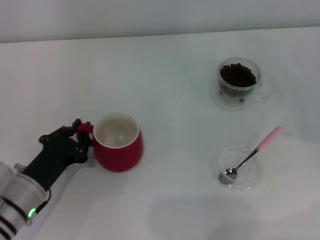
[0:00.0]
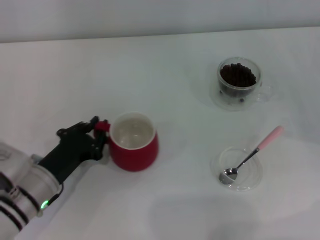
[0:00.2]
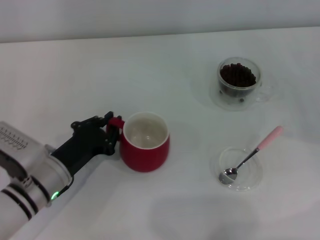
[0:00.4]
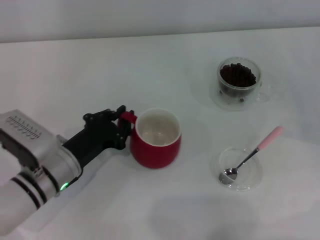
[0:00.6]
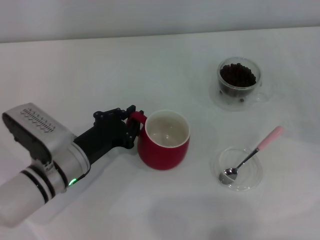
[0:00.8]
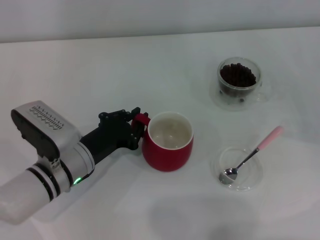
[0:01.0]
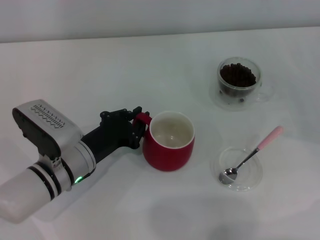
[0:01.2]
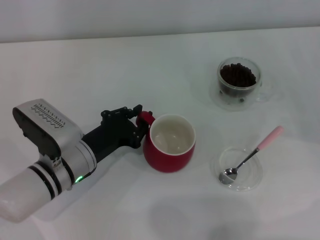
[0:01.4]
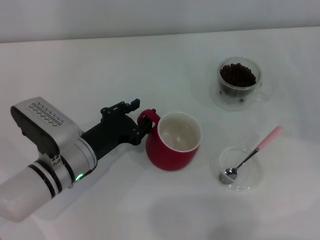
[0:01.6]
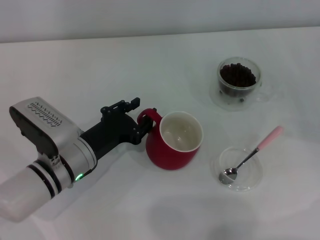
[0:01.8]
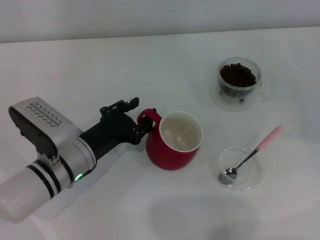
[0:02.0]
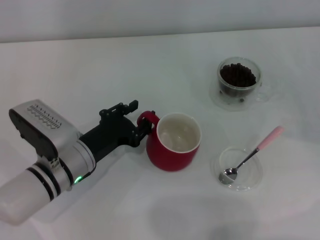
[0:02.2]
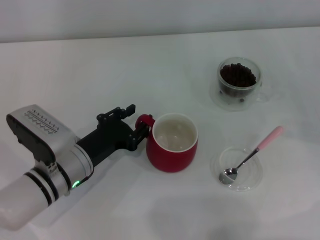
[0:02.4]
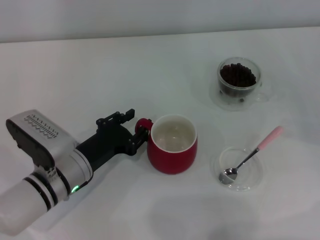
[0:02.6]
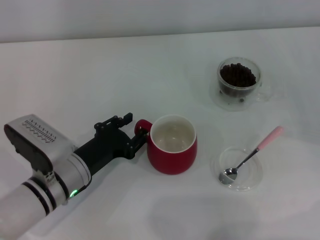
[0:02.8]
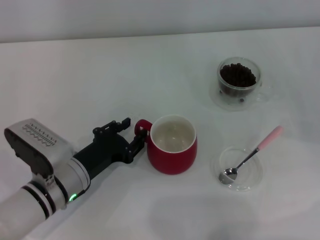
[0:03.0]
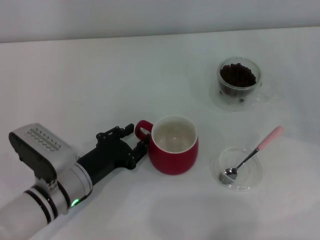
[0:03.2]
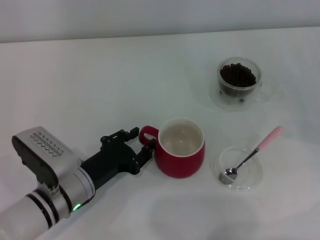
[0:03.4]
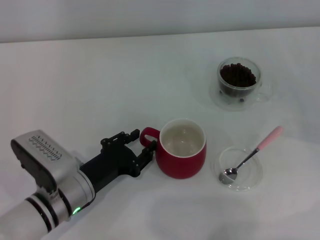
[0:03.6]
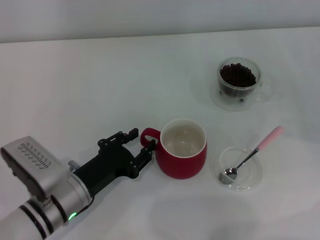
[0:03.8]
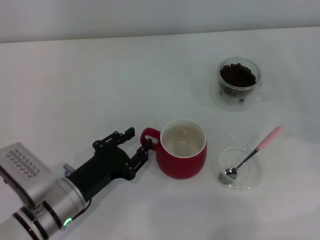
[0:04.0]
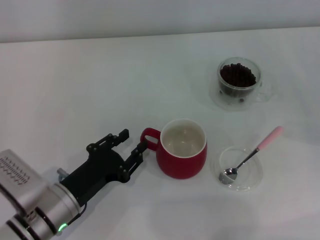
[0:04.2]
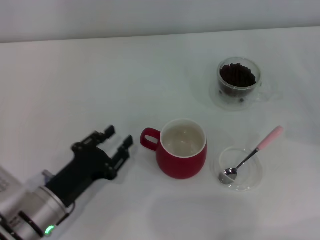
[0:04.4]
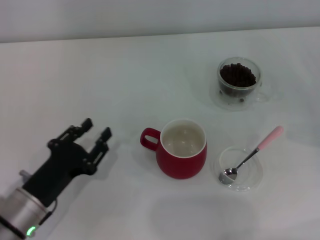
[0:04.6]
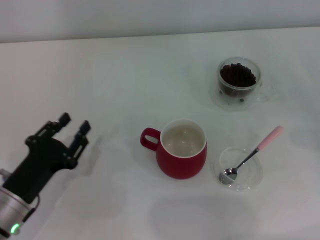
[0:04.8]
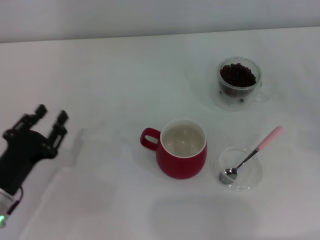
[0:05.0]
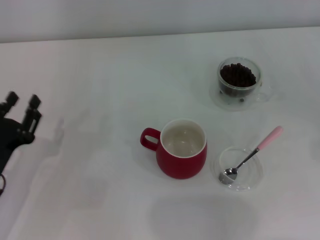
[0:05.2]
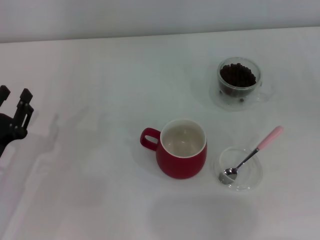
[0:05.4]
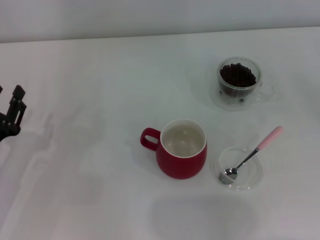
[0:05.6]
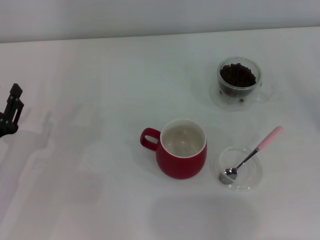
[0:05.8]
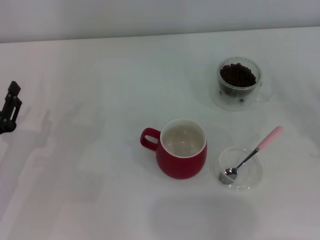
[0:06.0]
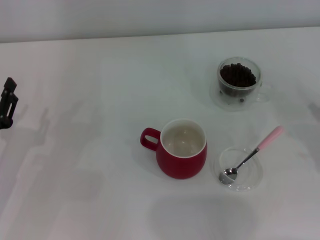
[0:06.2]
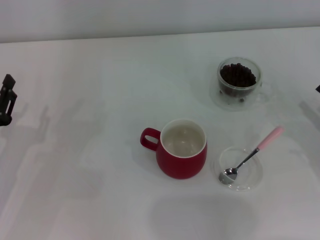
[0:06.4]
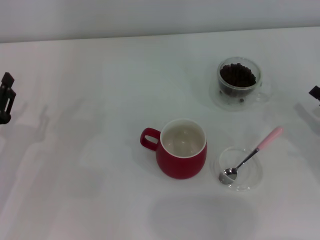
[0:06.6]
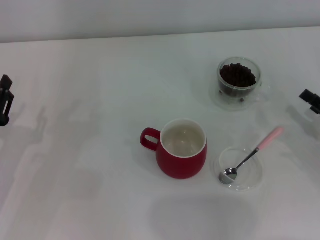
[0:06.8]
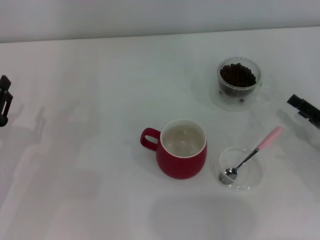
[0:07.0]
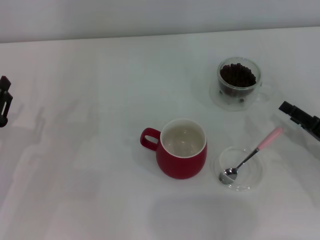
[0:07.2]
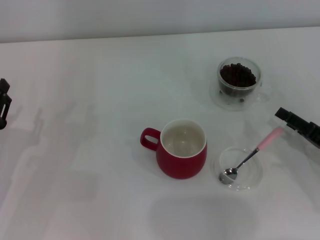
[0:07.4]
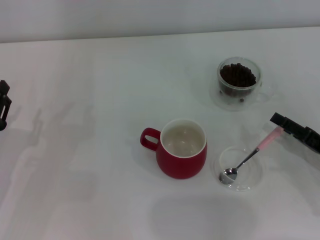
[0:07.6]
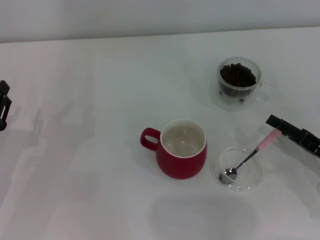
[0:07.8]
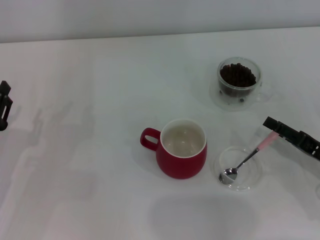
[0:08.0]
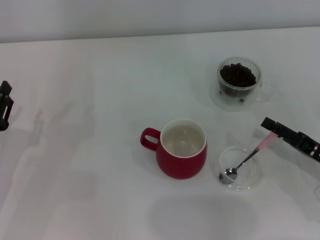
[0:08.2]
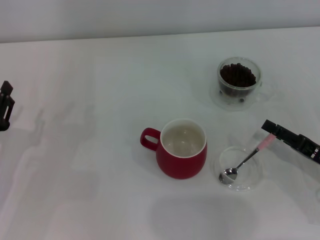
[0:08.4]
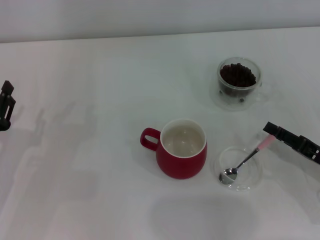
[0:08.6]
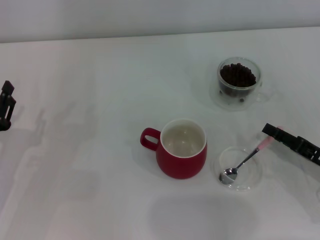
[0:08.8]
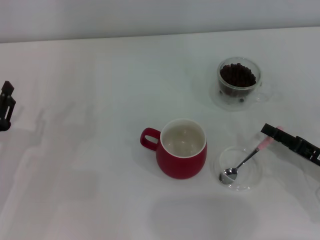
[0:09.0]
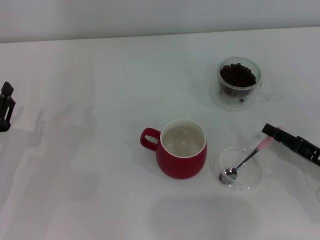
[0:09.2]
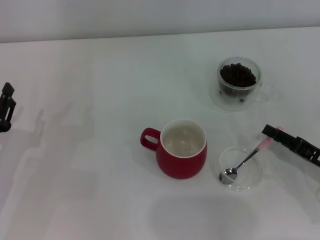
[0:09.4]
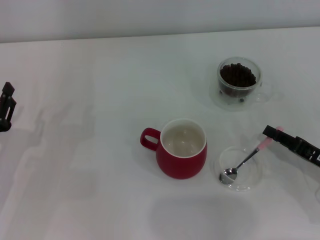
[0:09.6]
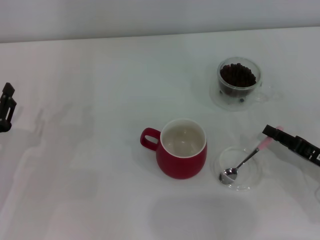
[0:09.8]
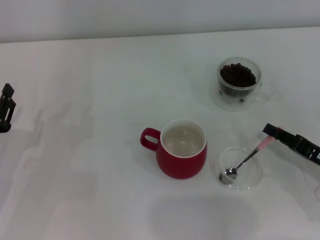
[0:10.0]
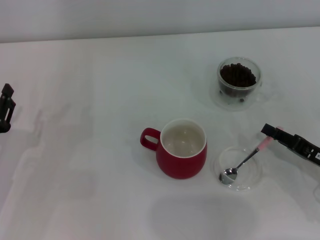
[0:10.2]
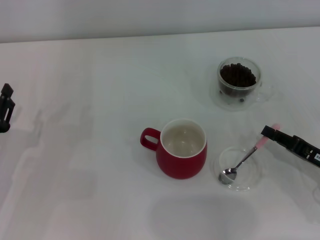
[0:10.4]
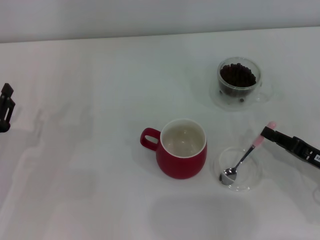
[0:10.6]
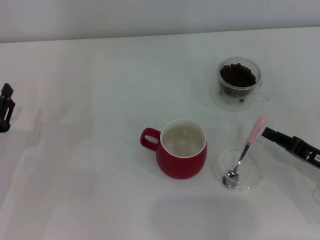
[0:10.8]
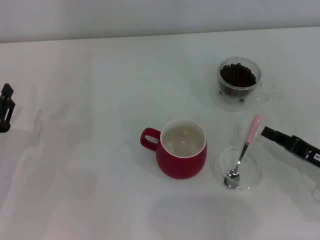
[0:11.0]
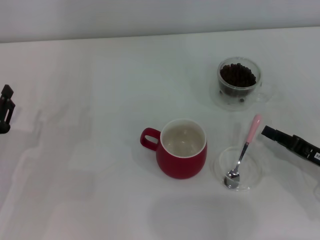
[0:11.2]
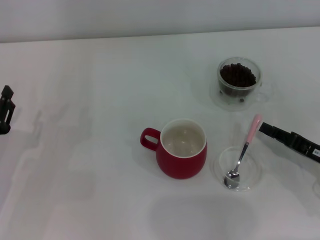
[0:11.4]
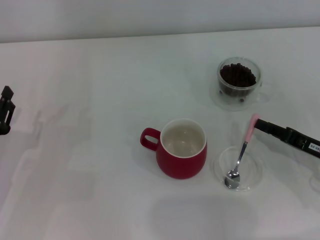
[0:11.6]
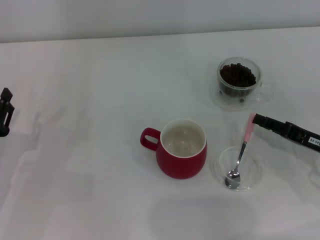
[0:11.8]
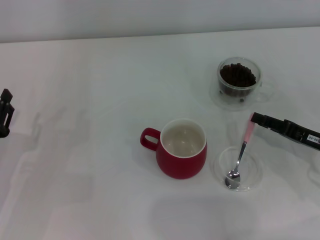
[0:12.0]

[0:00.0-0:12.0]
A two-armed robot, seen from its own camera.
Task of the whole recording: Use a pink spoon to take out the coffee beans from the glass and pour them into the red cup.
Step, 0:00.0 to 0:04.4: Move the cup to the center of view with the left gripper.
0:00.0 to 0:01.6: The left gripper moves to the right, roughly 5 cm.
0:01.6 to 0:03.0: The left gripper opens its fingers.
0:03.0 to 0:04.4: The left gripper ends up about 5 cm from where it was.
0:04.4 to 0:06.0: The left gripper goes roughly 10 cm to the left, while the right gripper moves backward, about 5 cm.
0:06.0 to 0:07.6: The right gripper moves to the left, roughly 5 cm.
0:07.6 to 0:09.0: The grippers stay close to where they were, moving slightly.
0:09.0 to 0:10.4: The right gripper closes up.
0:10.4 to 0:12.0: The grippers move only a little.

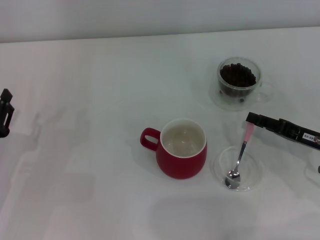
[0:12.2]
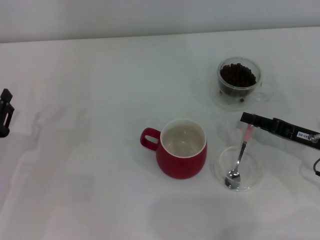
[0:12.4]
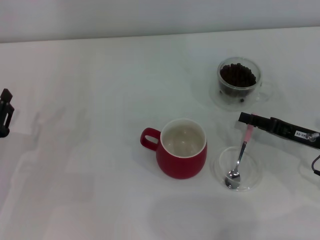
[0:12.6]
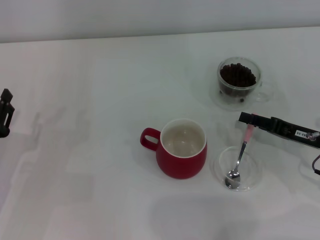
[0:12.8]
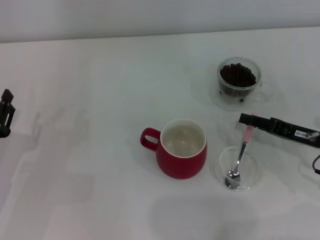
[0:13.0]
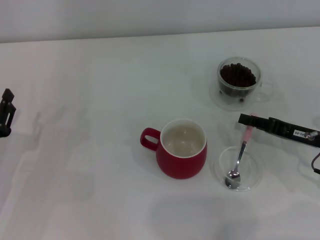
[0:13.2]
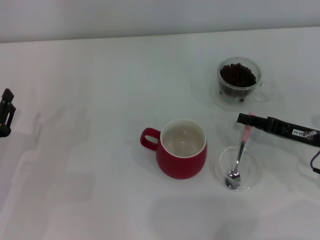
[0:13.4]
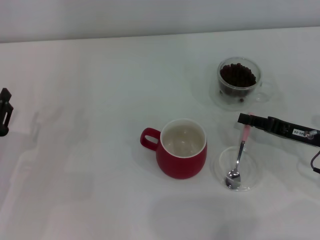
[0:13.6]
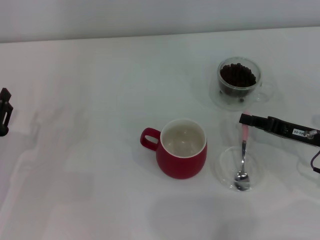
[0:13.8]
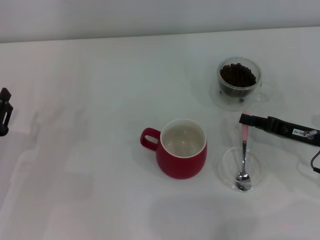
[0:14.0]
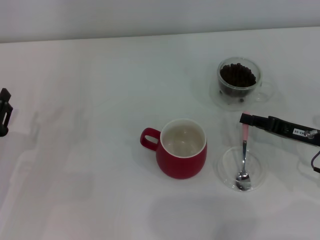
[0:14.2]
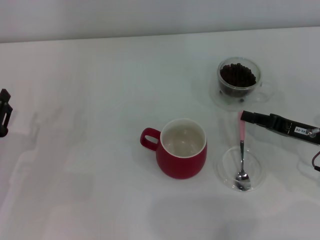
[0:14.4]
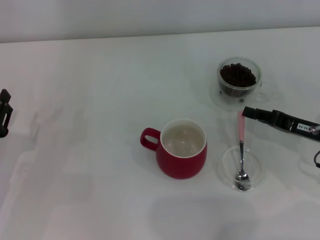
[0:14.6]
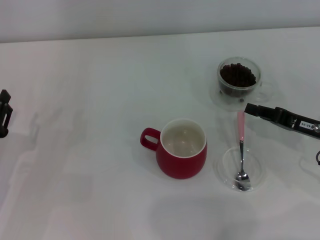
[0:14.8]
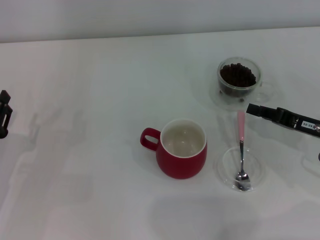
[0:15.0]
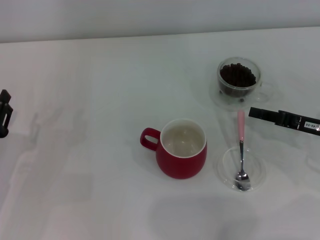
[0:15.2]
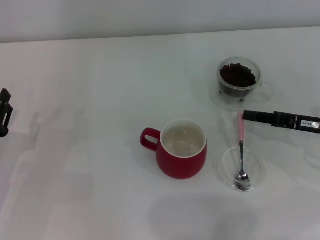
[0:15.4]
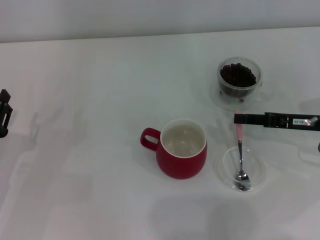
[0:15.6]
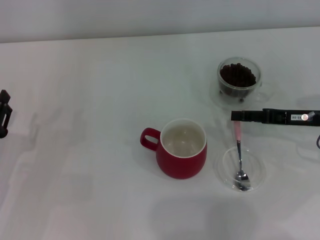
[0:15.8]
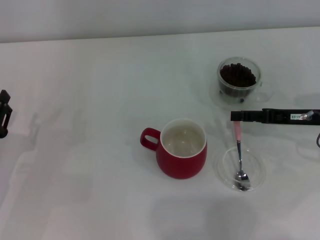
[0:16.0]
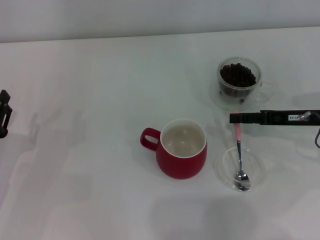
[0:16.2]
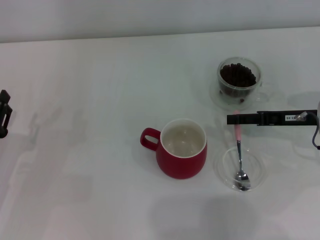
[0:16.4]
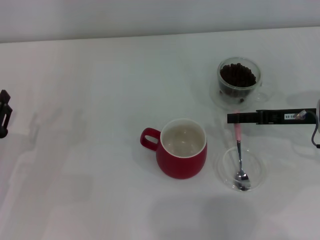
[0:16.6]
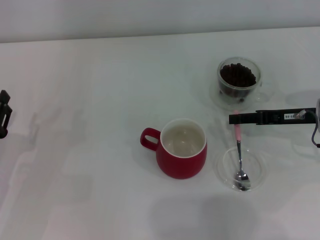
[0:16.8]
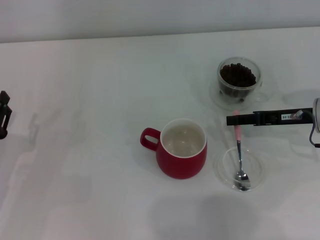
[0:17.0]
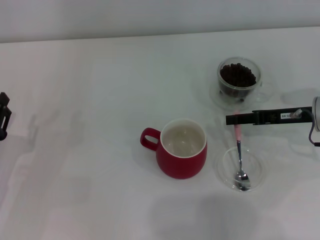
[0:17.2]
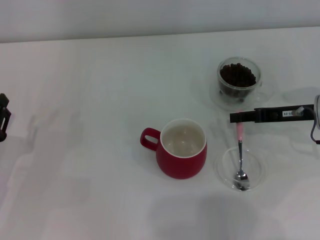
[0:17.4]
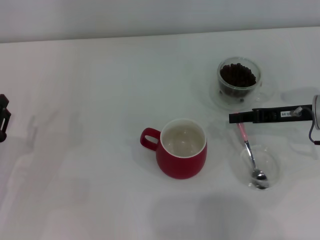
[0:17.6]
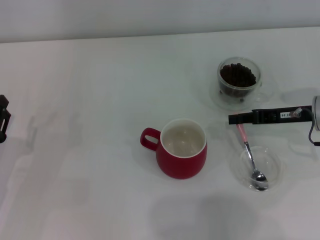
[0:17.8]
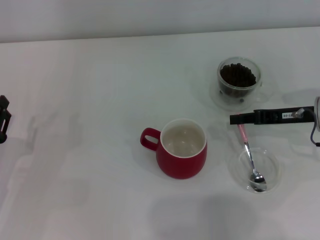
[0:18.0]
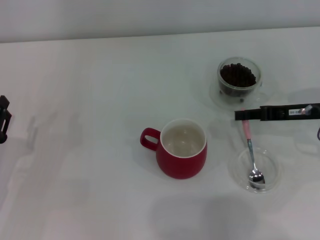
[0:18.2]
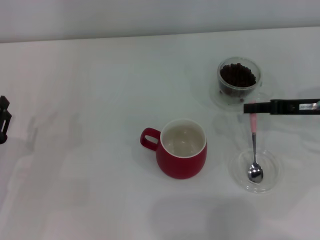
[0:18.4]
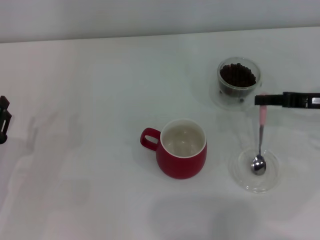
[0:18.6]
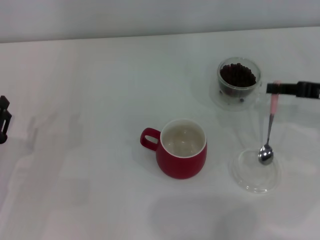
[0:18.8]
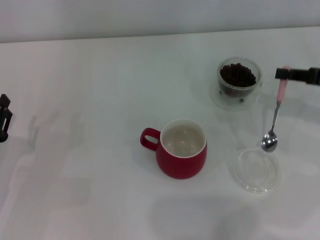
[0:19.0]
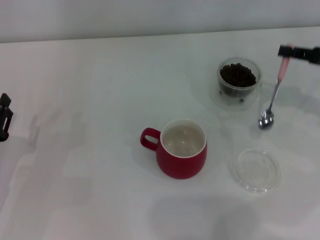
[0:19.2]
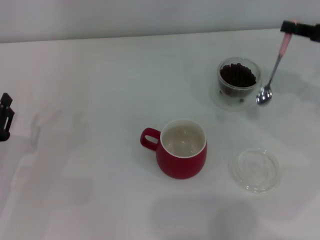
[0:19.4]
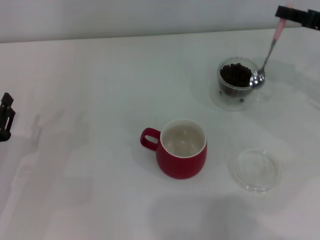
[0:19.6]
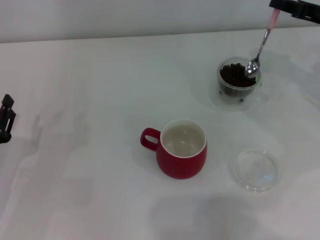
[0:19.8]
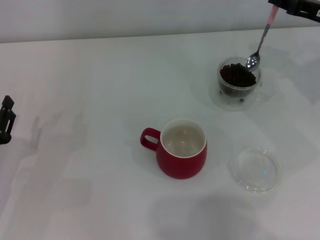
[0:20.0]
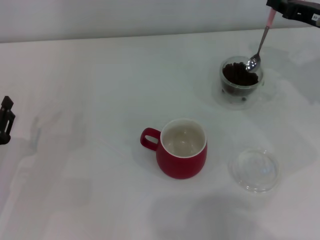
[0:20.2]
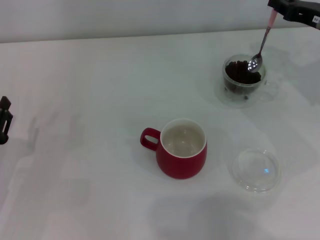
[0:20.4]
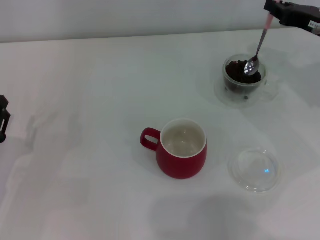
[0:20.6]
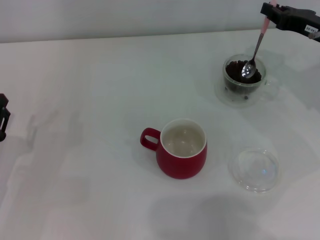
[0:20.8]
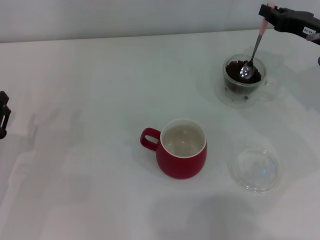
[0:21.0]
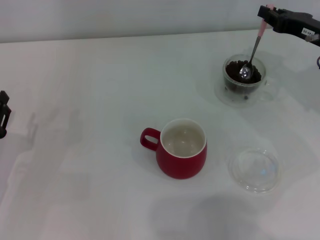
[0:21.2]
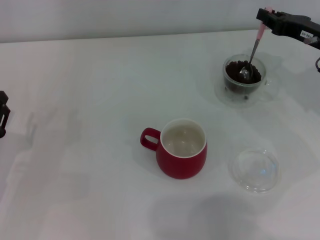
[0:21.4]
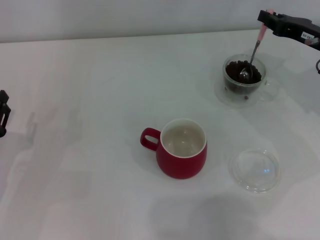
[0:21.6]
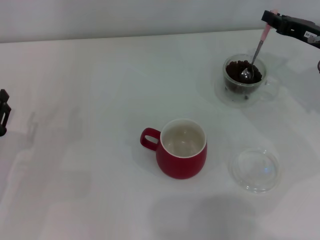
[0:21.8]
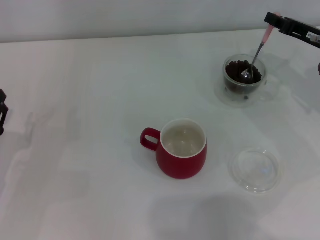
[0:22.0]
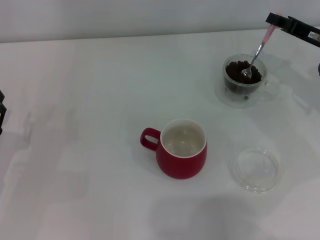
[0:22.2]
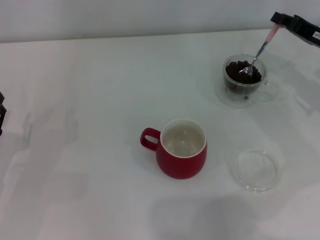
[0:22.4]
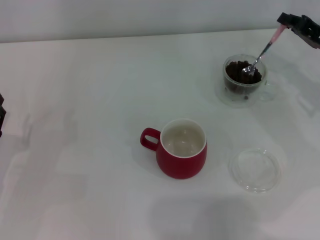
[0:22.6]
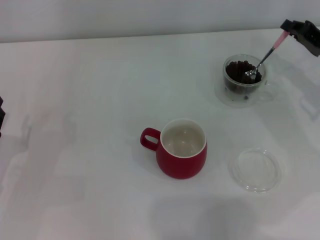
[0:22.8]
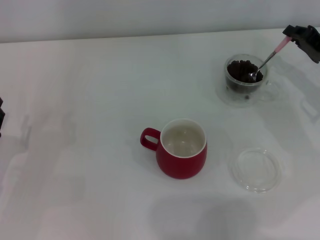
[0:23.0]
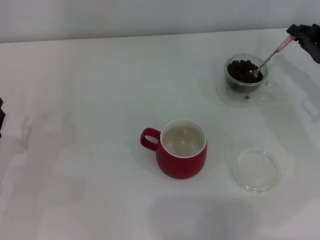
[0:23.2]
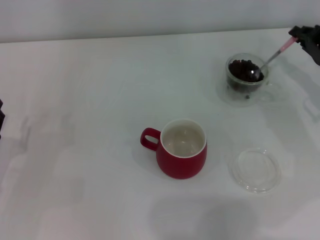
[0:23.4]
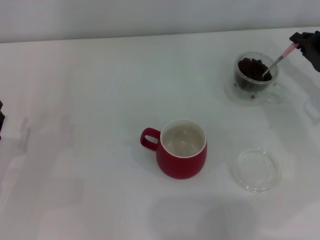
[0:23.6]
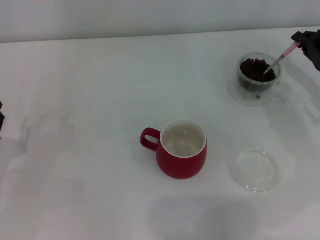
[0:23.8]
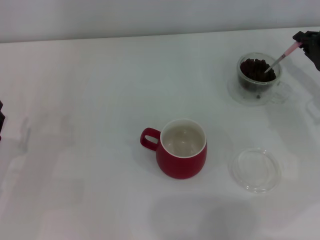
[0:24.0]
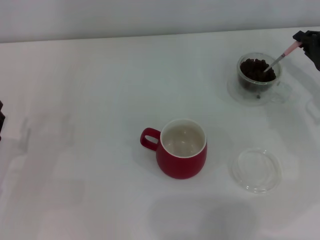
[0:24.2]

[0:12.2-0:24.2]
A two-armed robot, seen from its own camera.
Task of the whole recording: Use a pink spoon to take out the coffee beans from the glass and pour them into the red cup.
Step, 0:12.2 to 0:18.6: Pick up the spoon with the right gripper.
0:12.2 to 0:15.2: There are only small adjustments of the grippers.
0:15.2 to 0:16.6: The right gripper shifts by some 5 cm, and opens.
0:16.6 to 0:18.2: The right gripper closes up.
0:18.2 to 0:19.8: The right gripper shifts some 10 cm upward and forward.
0:19.8 to 0:21.2: The grippers make only small movements.
